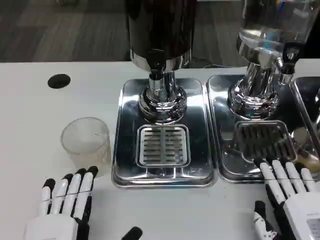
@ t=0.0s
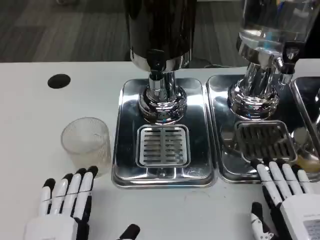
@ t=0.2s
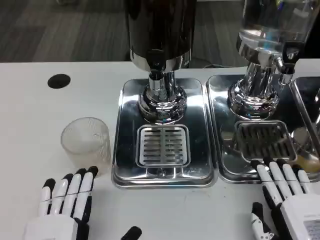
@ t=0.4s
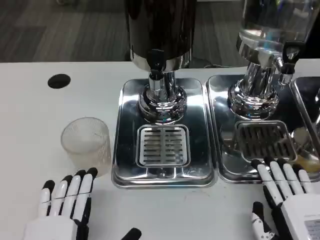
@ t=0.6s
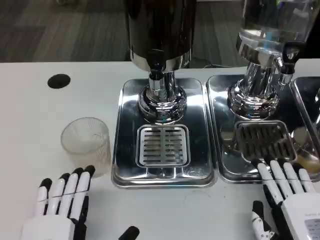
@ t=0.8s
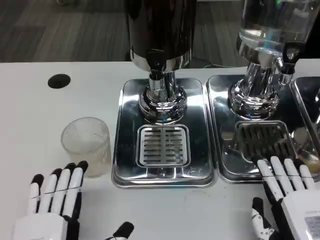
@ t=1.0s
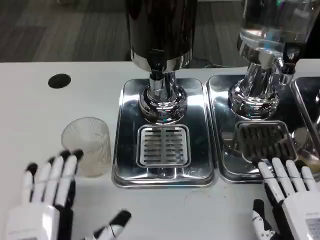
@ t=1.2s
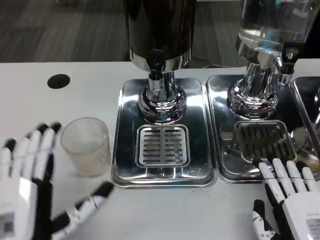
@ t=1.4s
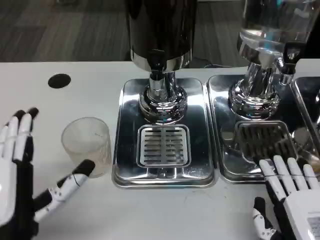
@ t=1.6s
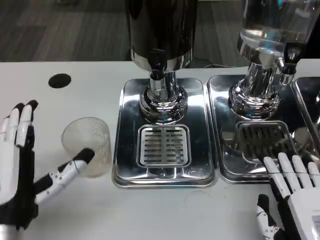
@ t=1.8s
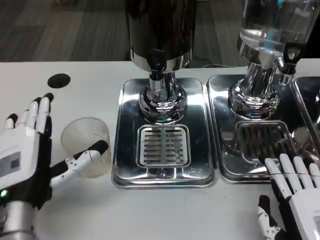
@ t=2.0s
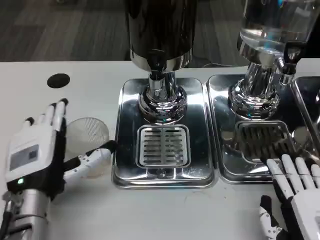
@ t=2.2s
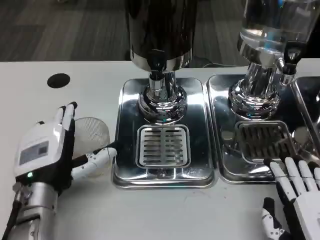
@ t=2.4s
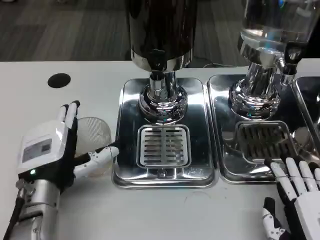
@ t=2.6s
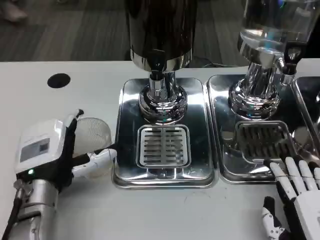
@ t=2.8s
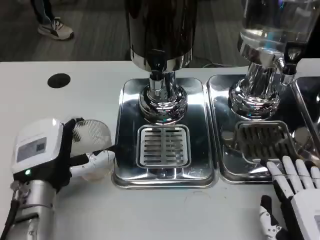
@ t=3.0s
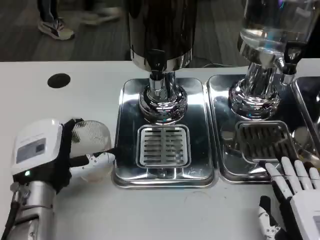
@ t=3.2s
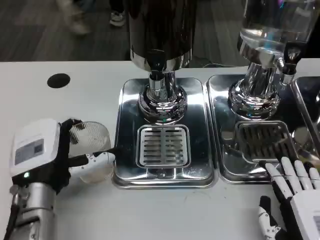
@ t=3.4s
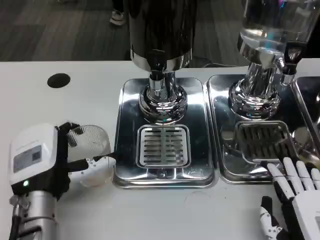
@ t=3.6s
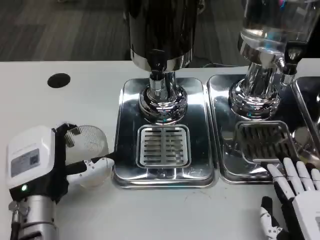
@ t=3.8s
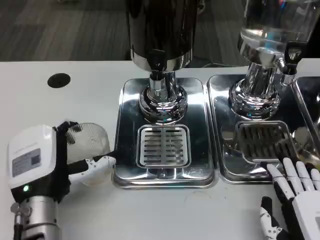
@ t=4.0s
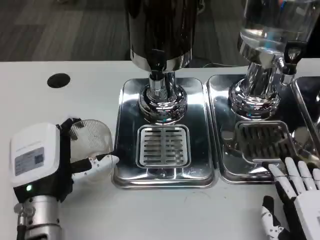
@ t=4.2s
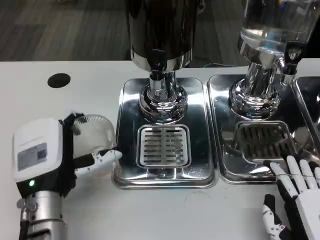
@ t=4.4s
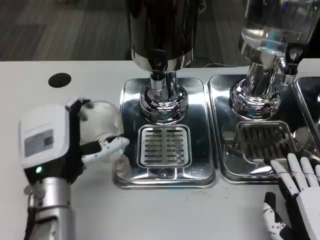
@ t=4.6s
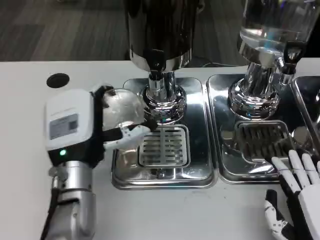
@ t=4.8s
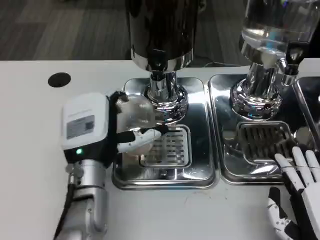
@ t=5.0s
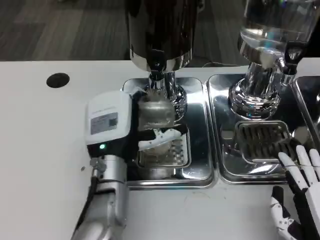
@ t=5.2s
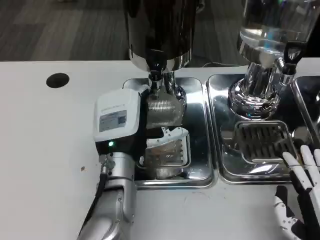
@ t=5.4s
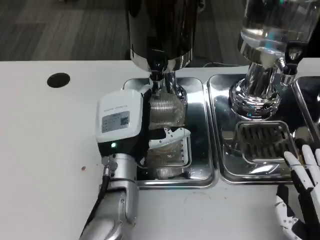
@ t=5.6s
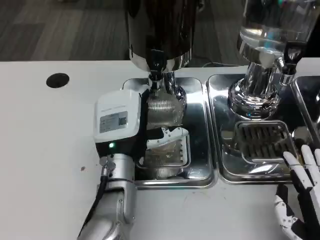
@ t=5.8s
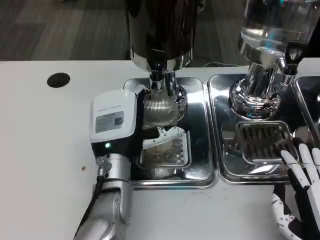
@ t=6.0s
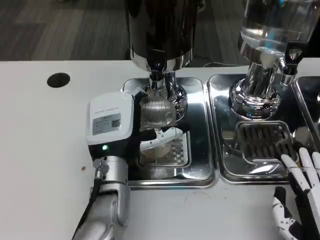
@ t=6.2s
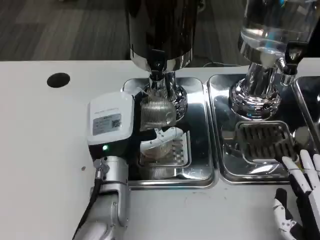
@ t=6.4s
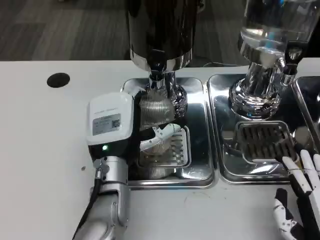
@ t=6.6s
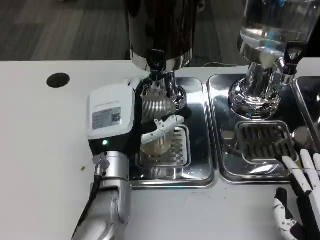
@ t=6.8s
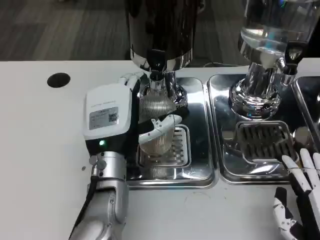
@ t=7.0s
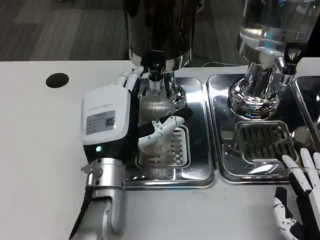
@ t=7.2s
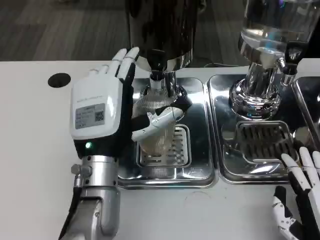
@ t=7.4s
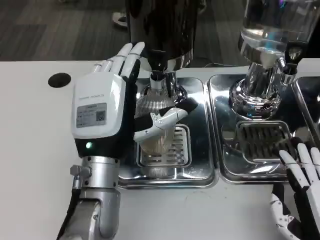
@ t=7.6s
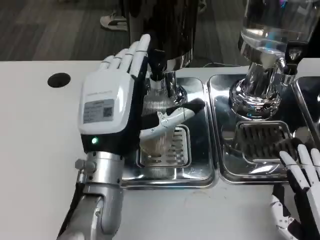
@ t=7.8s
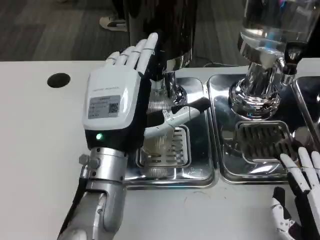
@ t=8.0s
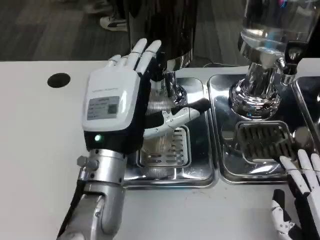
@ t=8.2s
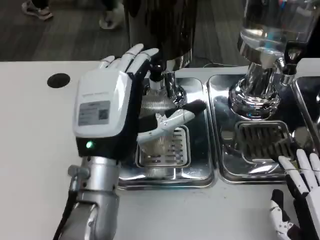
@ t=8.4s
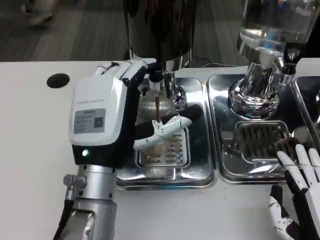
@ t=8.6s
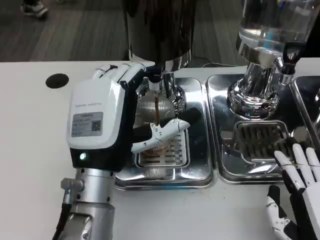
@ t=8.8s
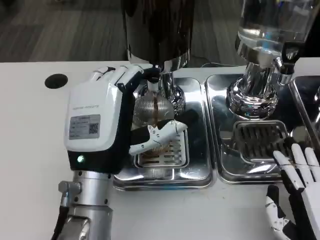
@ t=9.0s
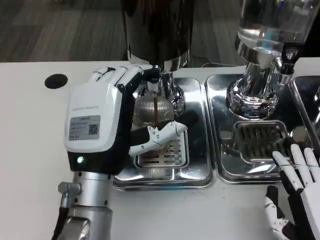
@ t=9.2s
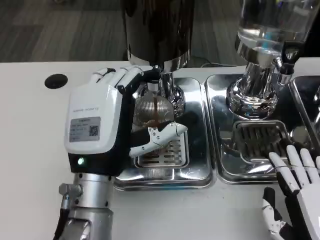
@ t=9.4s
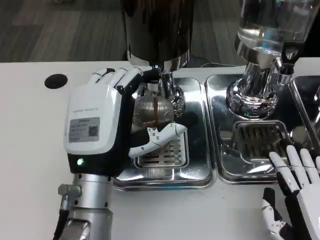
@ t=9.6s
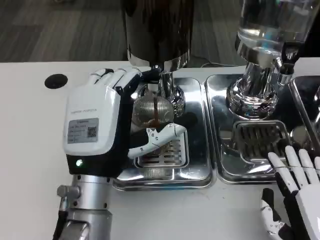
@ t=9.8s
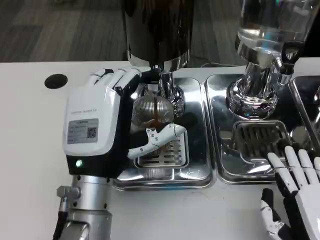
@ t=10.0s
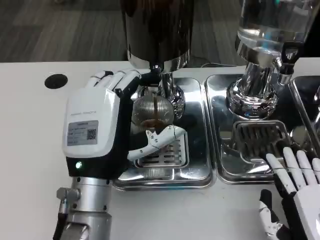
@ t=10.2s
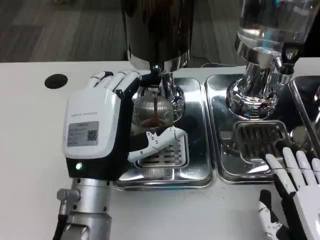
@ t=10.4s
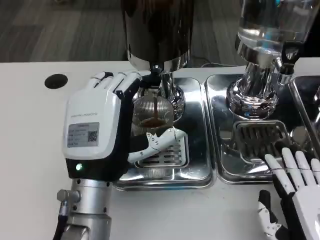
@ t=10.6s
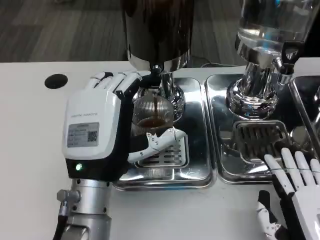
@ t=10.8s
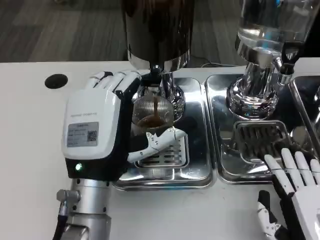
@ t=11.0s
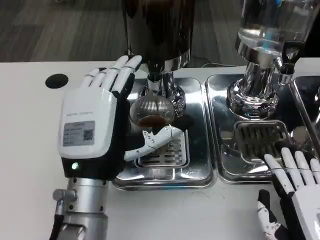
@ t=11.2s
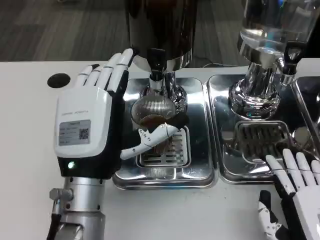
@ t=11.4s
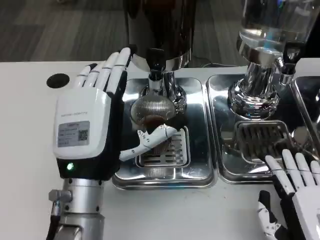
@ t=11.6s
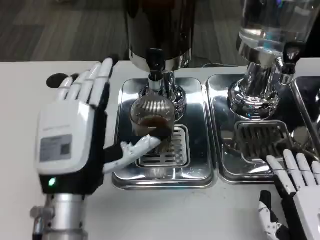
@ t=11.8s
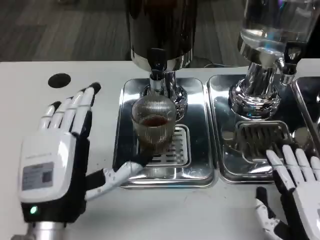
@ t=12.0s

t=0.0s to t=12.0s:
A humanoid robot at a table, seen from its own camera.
Task of the whole recording: Grasp the cup under the faucet to collect the drink, then remove the cup.
t=0.0s to t=1.6s: The left hand heads forward and upward, covering about 10 cm.
t=1.6s to t=3.0s: The left hand heads forward, covering approximately 10 cm.
t=3.0s to t=4.4s: There are only small adjustments of the hands.
t=4.4s to t=6.0s: The left hand heads to the right and forward, covering approximately 10 cm.
t=6.0s to t=7.6s: The left hand shifts by roughly 5 cm.
t=9.0s to t=10.4s: The two hands keep their place.
t=10.4s to t=12.0s: The left hand changes place by about 5 cm.

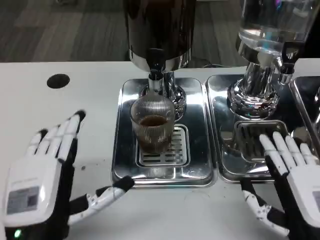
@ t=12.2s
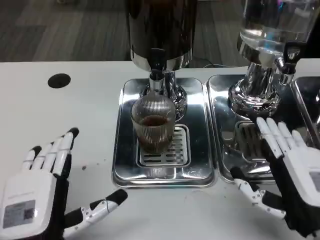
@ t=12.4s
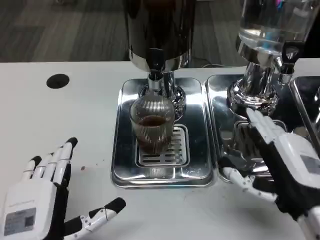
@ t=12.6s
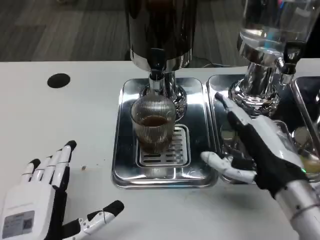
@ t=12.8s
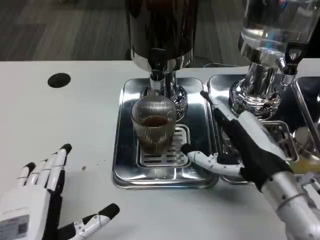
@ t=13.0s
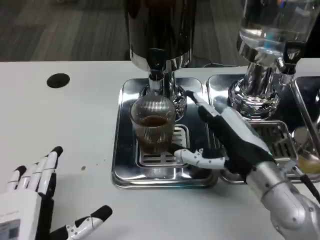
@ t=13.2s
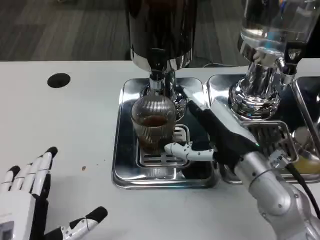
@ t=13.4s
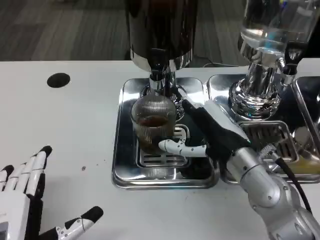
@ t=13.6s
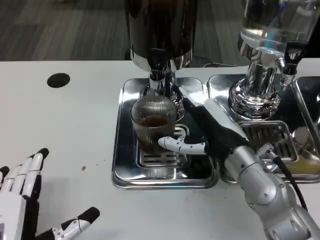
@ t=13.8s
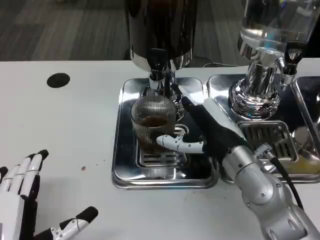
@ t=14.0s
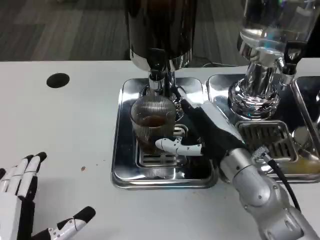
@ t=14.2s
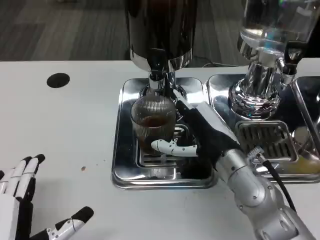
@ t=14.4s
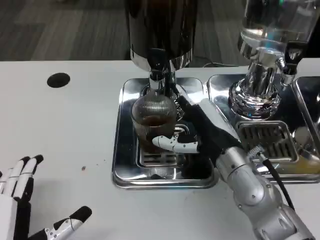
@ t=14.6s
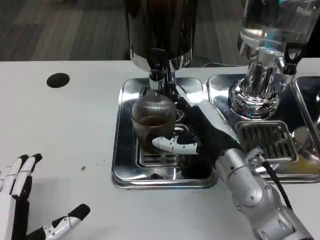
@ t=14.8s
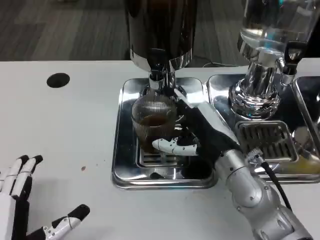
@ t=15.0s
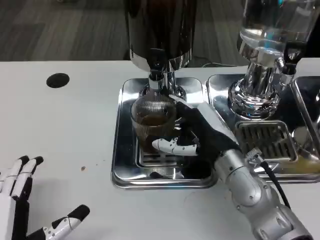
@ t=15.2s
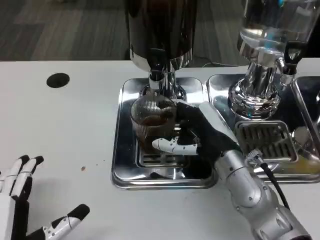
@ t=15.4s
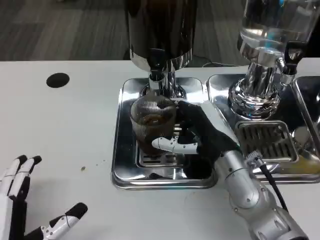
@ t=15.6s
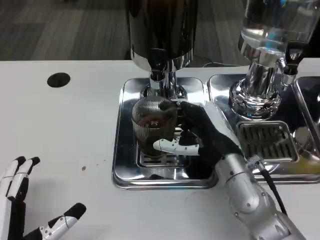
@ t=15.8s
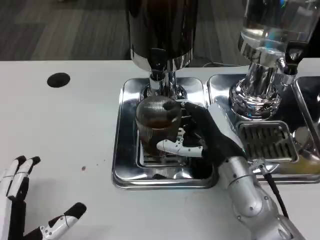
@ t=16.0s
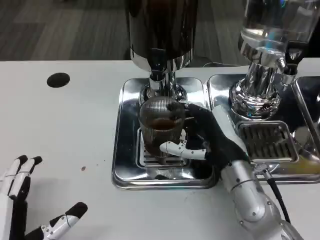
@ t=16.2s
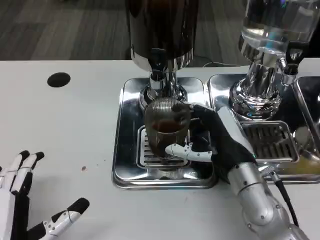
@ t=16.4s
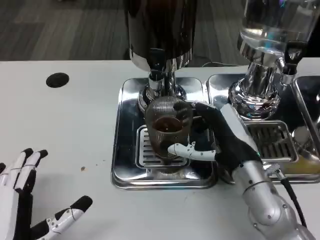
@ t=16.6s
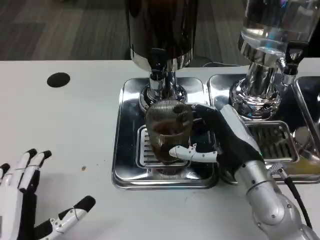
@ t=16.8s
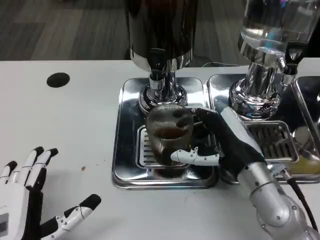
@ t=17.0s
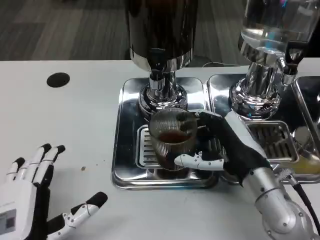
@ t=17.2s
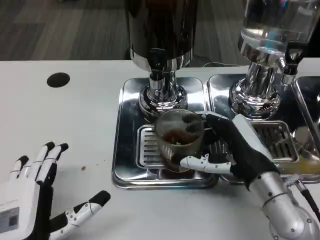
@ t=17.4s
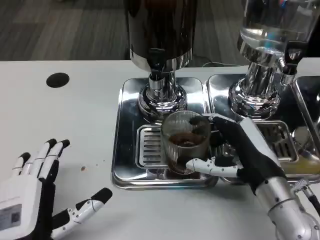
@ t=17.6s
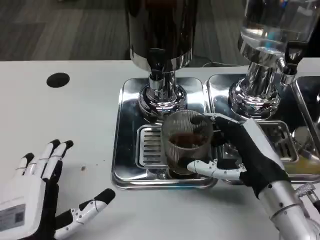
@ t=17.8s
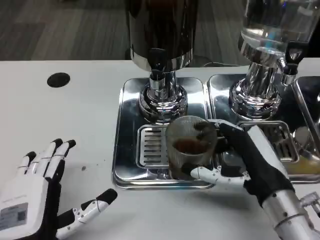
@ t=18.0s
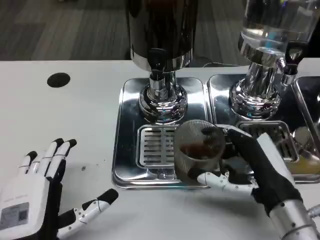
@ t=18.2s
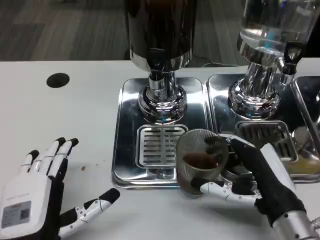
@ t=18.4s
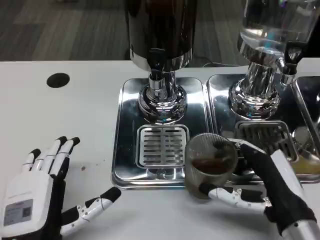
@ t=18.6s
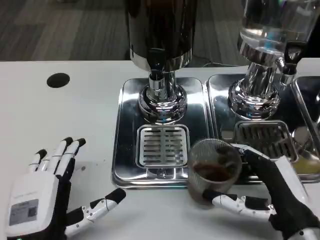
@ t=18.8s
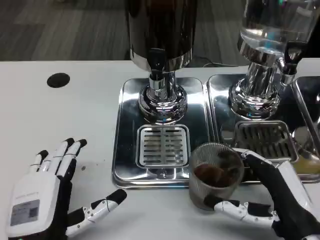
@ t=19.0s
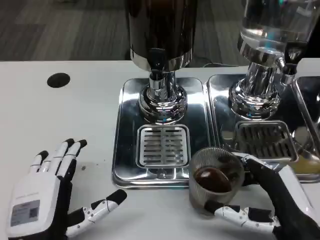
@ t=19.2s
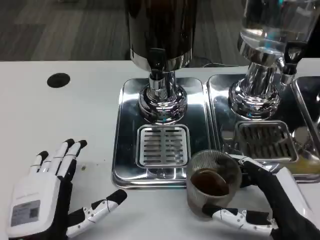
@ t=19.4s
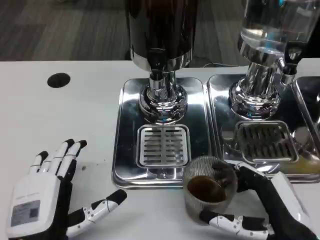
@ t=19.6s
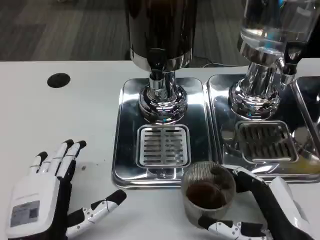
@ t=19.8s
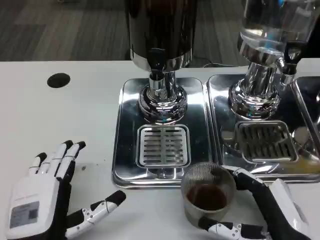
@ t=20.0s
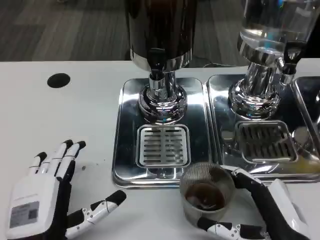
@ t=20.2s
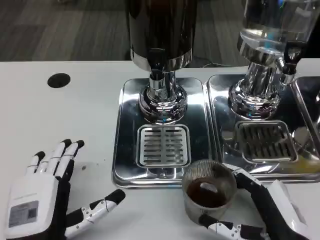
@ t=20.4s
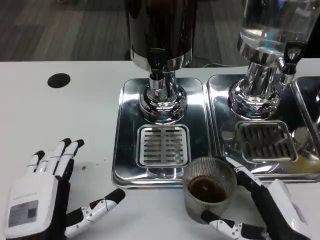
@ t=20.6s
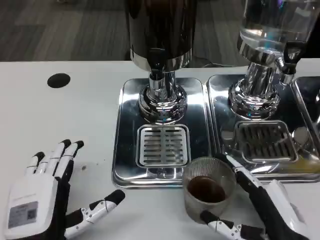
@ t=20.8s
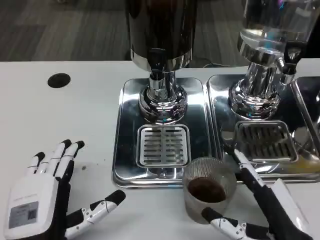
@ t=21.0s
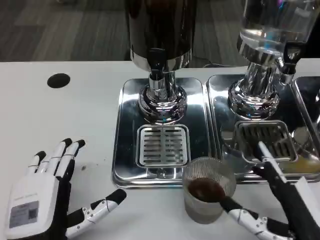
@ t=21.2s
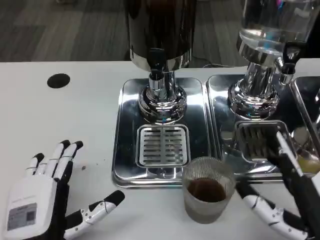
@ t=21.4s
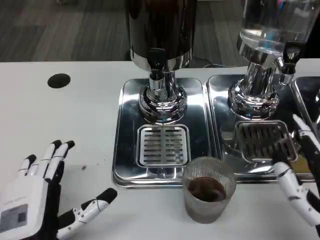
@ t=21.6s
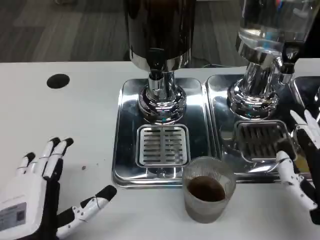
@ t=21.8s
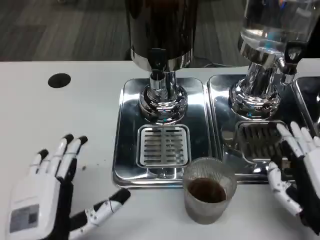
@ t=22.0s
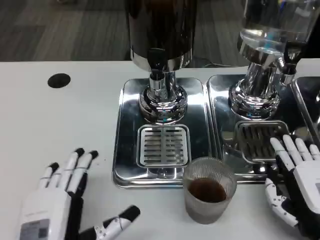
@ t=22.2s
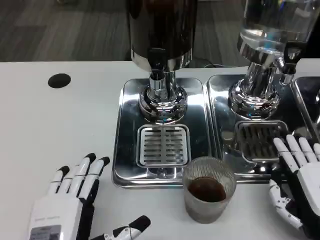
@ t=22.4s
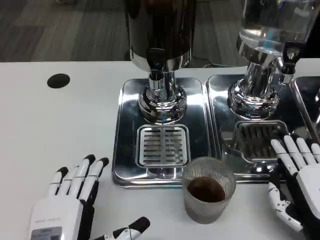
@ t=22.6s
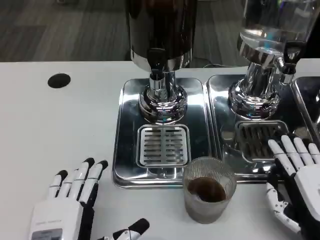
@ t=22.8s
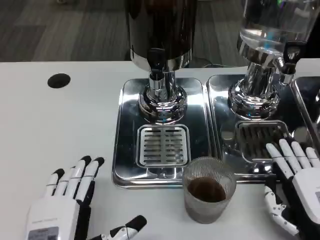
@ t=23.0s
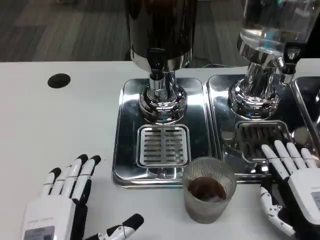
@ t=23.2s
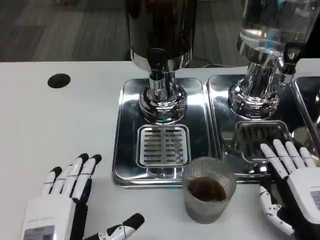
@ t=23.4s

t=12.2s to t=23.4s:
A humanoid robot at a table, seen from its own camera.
Task of the whole recording: Grasp the cup under the faucet to collect the drink, then remove the cup.
t=12.2s to t=13.8s: The left hand changes place by about 5 cm; the right hand moves forward and to the left, roughly 15 cm.
t=13.8s to t=17.0s: The hands move only a little.
t=17.0s to t=18.6s: The right hand moves backward, about 10 cm.
t=18.6s to t=20.2s: The hands make only small movements.
t=20.2s to t=21.8s: The right hand changes place by about 5 cm.
t=21.8s to t=23.4s: The right hand goes roughly 5 cm downward.
